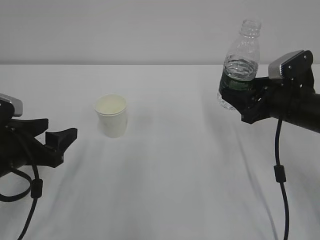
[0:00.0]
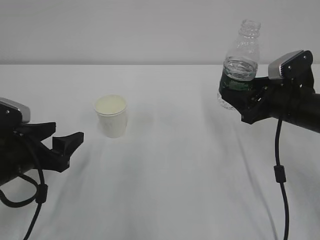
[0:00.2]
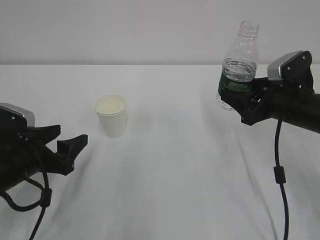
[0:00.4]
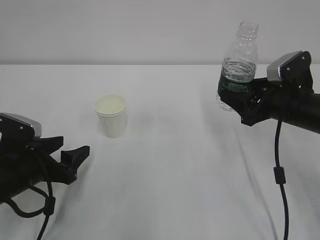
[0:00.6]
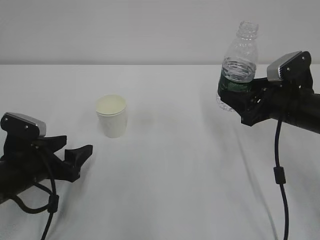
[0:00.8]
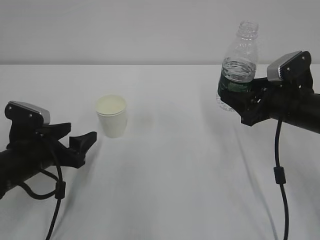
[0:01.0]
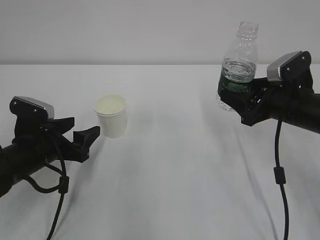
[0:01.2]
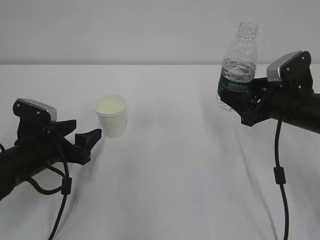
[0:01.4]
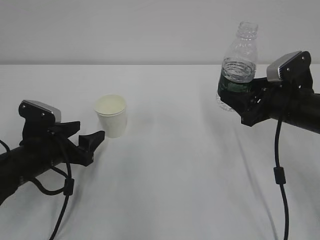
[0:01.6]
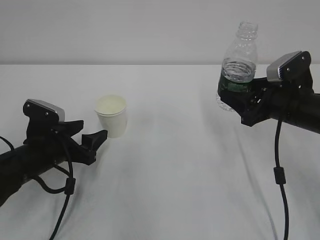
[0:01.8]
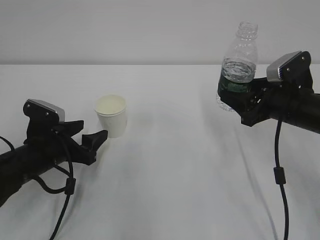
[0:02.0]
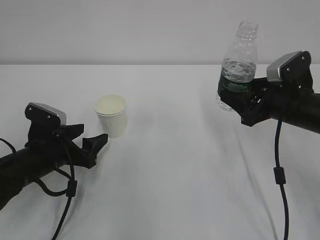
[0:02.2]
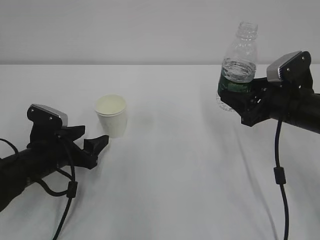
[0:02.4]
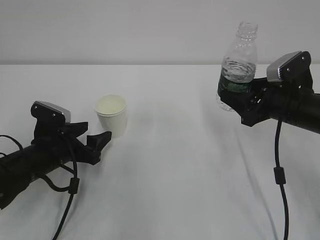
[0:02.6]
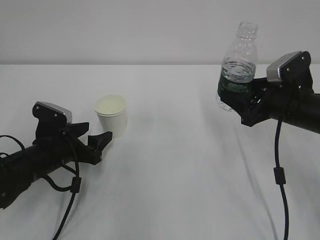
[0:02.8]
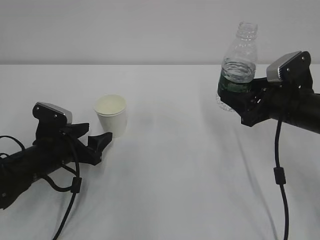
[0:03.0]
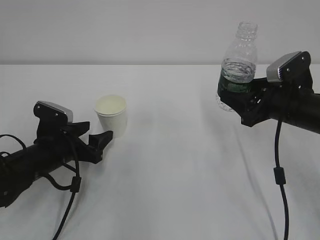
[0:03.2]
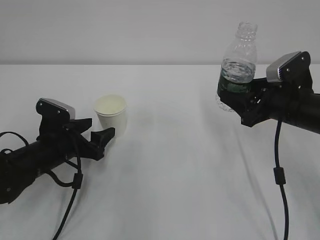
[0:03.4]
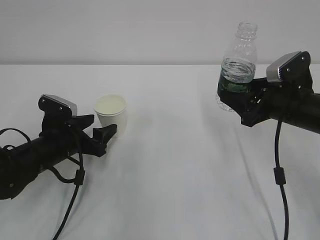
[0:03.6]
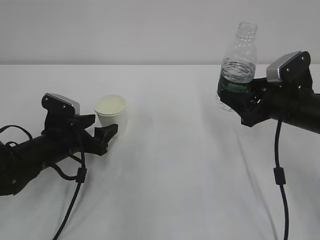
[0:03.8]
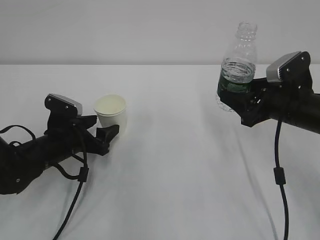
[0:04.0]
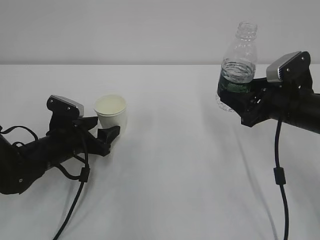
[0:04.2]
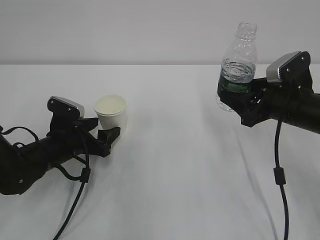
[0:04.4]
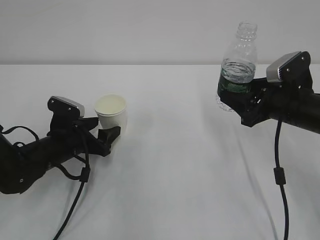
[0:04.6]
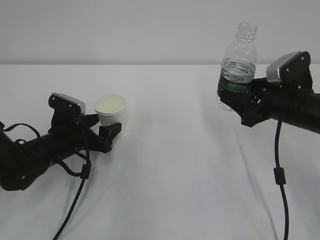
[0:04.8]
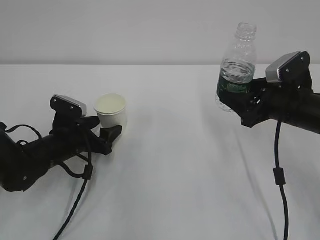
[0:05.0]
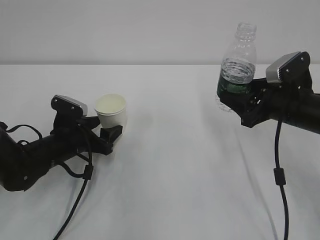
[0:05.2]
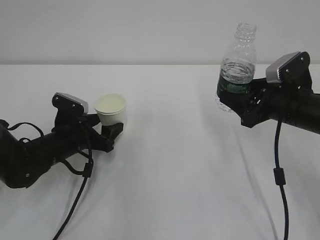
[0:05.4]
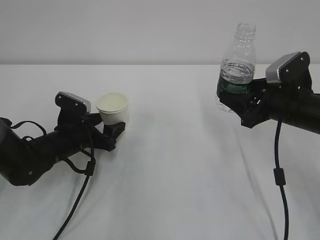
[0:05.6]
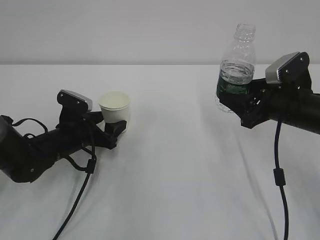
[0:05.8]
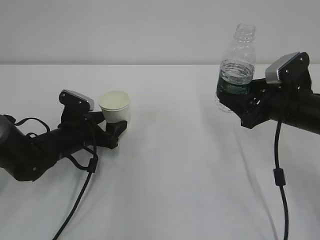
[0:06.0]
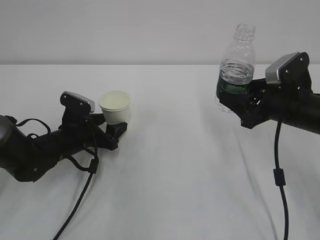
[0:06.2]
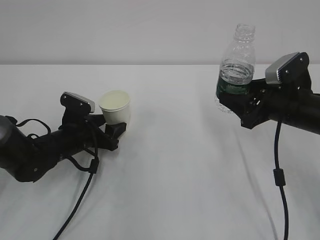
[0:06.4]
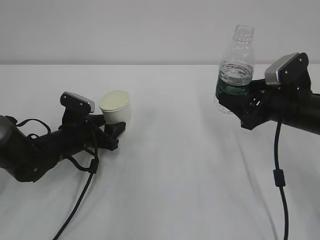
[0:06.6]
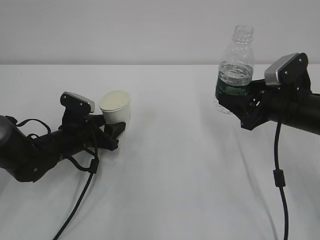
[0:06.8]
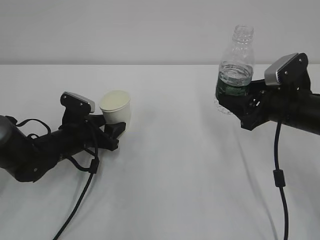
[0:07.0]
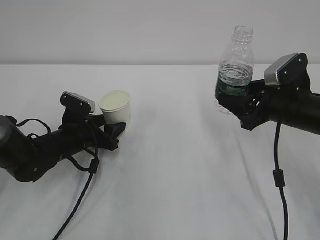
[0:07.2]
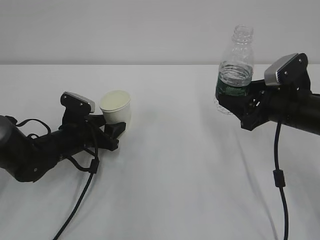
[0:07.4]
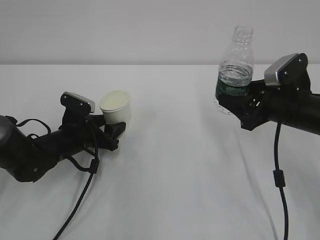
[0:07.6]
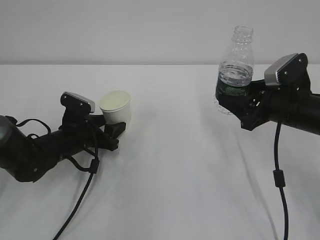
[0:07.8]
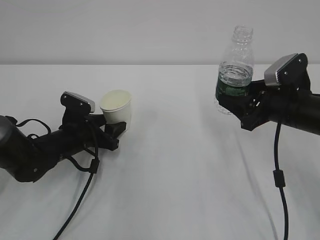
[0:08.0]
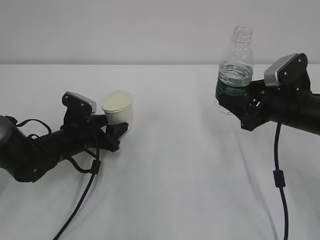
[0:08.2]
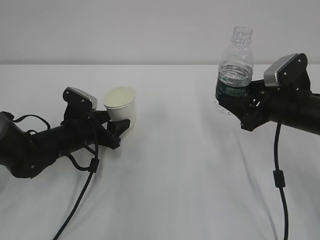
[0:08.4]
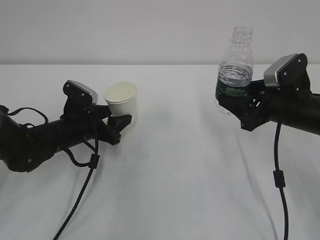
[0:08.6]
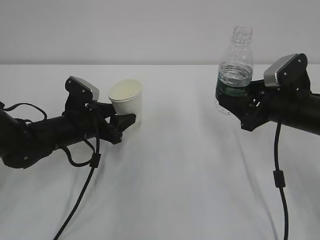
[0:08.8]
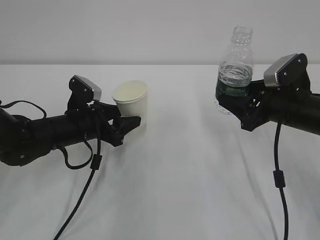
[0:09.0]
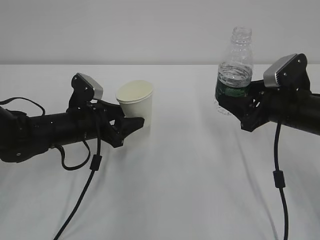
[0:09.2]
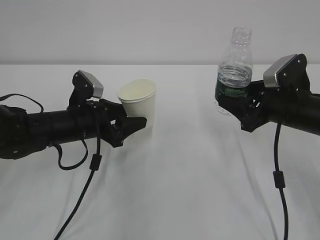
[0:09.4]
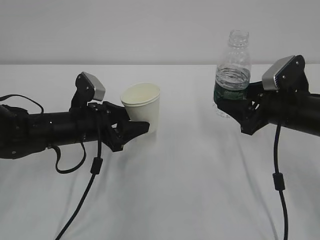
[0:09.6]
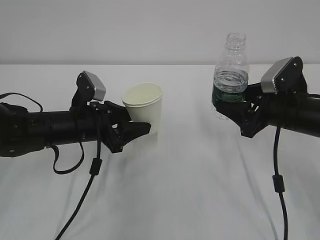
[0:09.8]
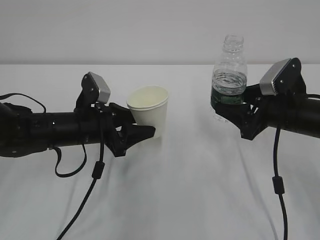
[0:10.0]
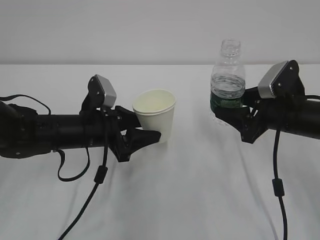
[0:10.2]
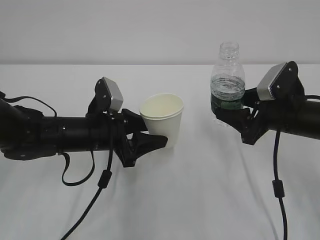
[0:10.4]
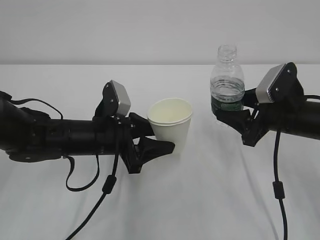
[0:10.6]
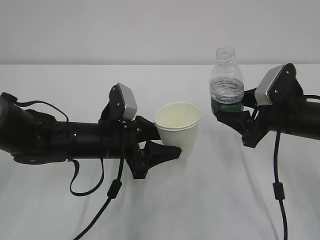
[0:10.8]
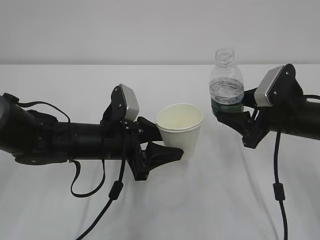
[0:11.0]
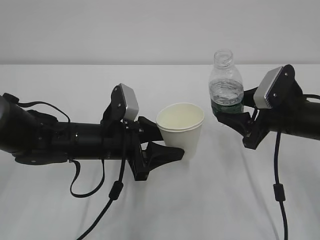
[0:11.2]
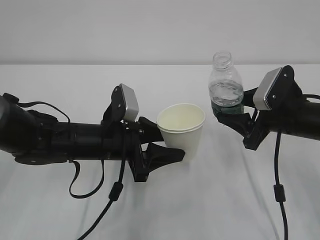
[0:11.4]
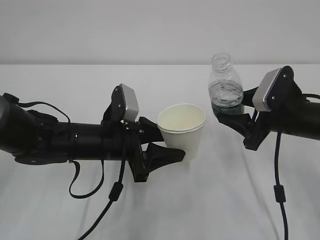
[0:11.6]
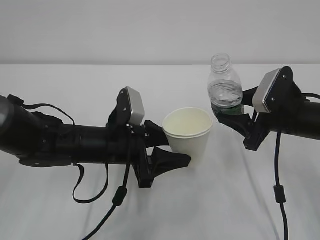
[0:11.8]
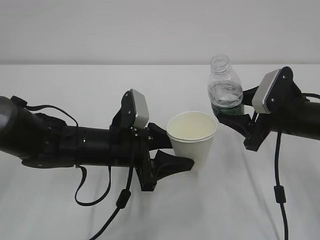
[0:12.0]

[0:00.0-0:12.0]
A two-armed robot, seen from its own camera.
0:00.0 to 0:01.6: The left gripper travels downward by some 5 cm.
0:01.6 to 0:04.4: The grippers move only a little.
0:04.4 to 0:06.0: The grippers move only a little.
0:06.0 to 0:07.6: Both grippers stay about where they are.
0:07.6 to 0:09.0: The left gripper shifts by about 5 cm.
0:09.0 to 0:10.4: The left gripper ends up about 5 cm from where it was.
0:10.4 to 0:12.0: There are only small adjustments of the grippers.

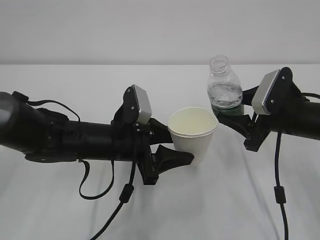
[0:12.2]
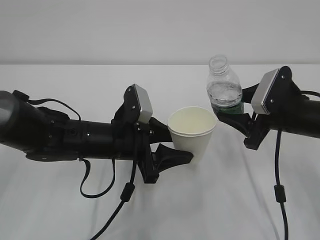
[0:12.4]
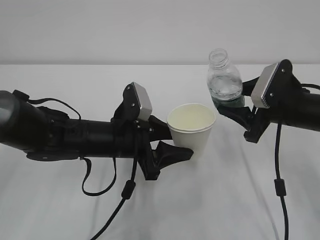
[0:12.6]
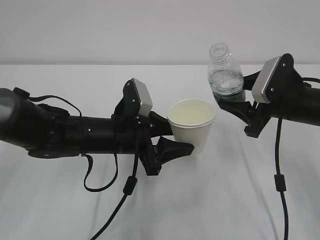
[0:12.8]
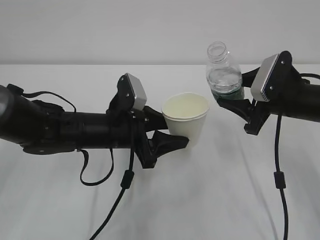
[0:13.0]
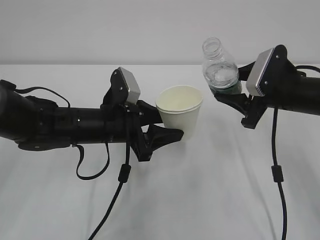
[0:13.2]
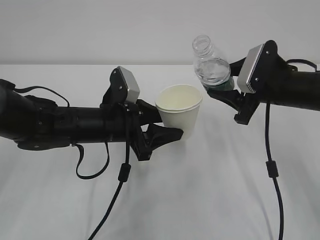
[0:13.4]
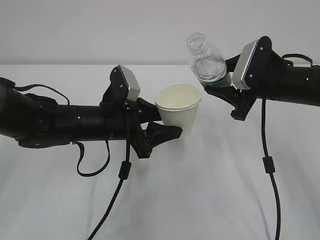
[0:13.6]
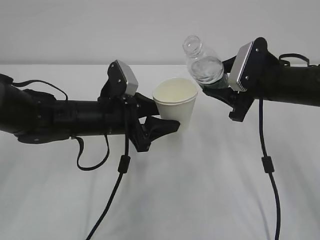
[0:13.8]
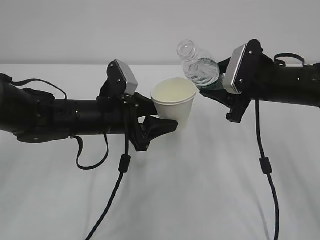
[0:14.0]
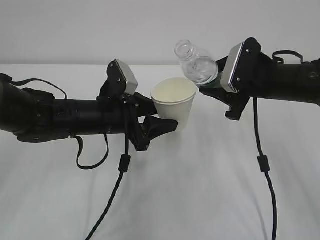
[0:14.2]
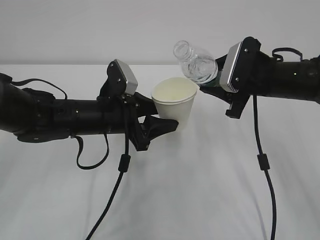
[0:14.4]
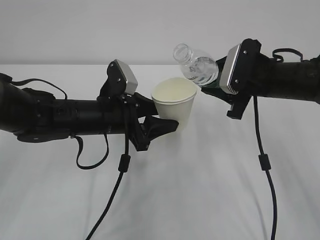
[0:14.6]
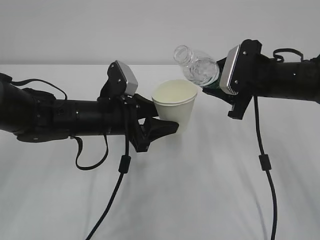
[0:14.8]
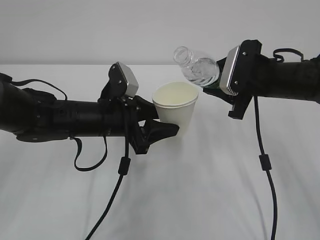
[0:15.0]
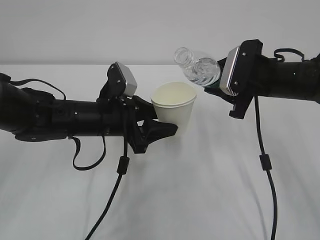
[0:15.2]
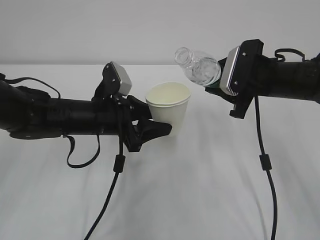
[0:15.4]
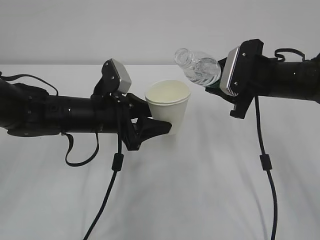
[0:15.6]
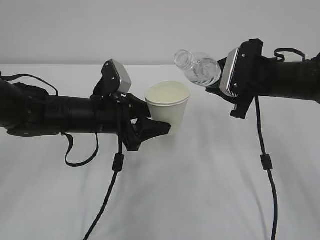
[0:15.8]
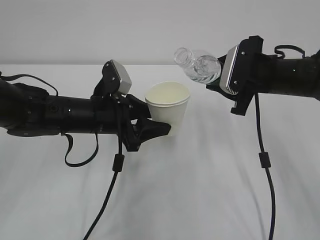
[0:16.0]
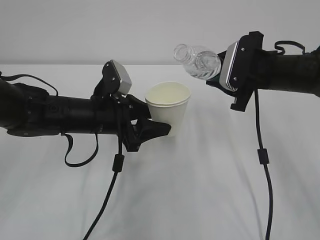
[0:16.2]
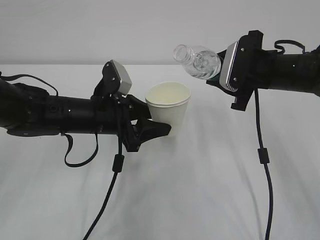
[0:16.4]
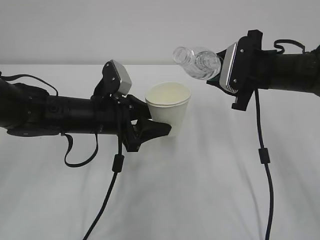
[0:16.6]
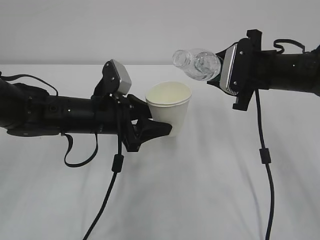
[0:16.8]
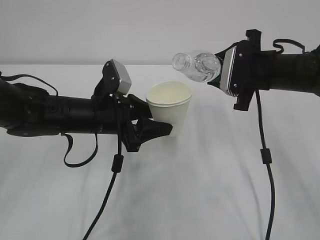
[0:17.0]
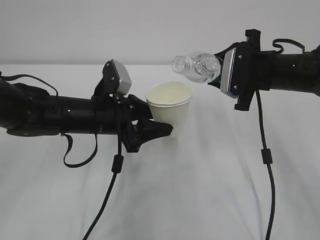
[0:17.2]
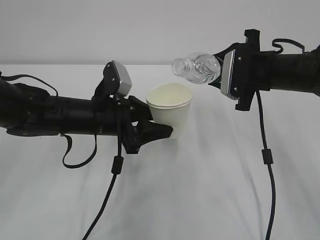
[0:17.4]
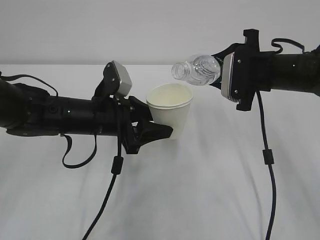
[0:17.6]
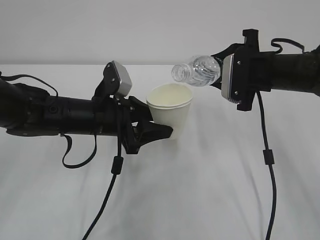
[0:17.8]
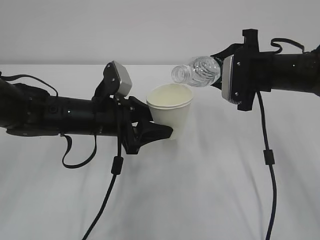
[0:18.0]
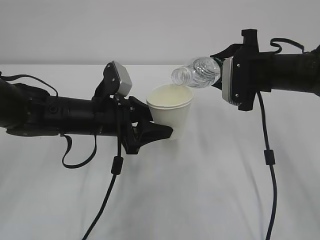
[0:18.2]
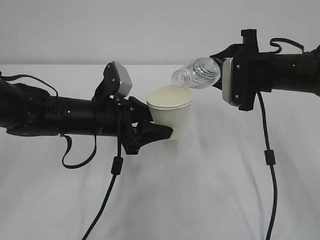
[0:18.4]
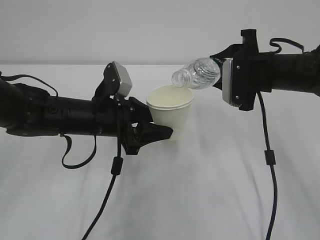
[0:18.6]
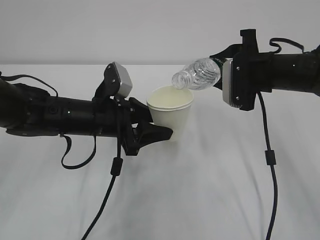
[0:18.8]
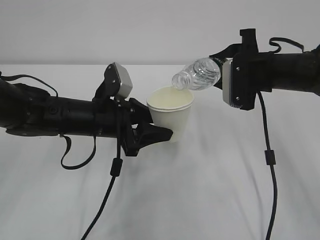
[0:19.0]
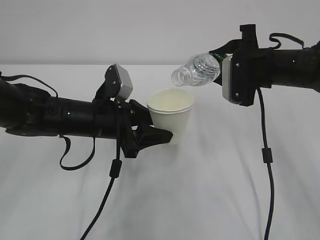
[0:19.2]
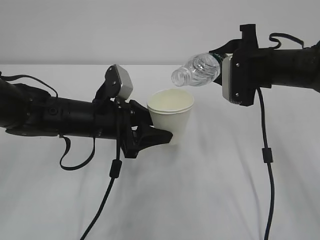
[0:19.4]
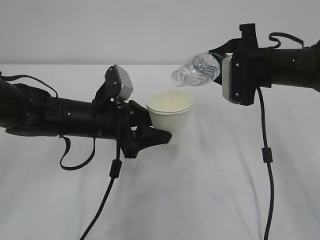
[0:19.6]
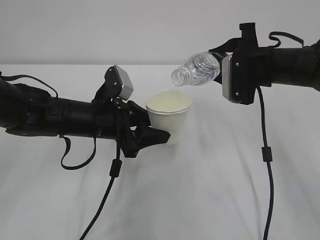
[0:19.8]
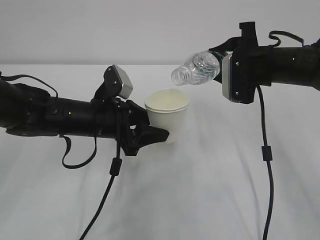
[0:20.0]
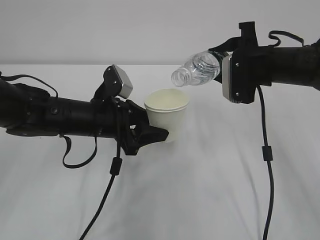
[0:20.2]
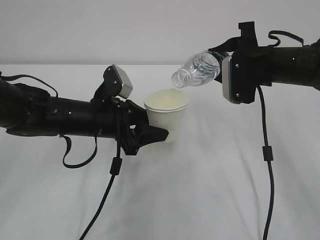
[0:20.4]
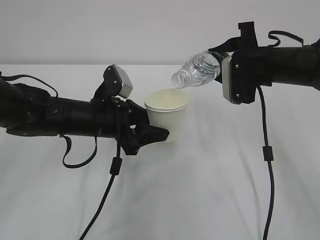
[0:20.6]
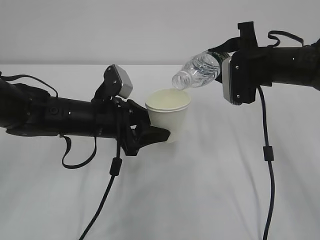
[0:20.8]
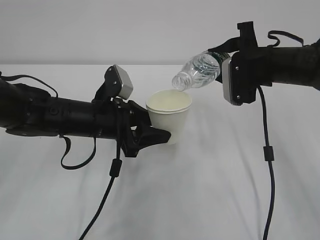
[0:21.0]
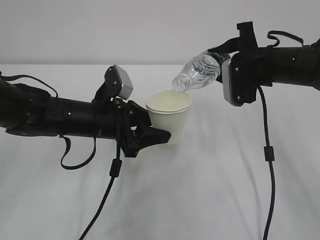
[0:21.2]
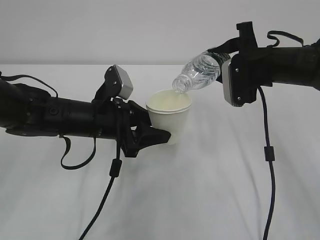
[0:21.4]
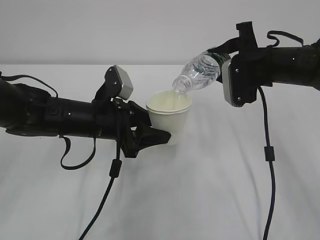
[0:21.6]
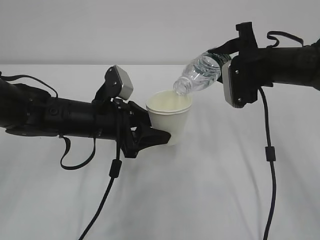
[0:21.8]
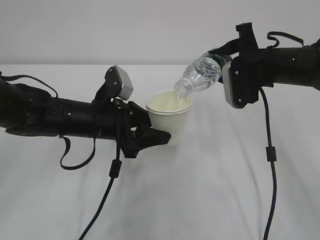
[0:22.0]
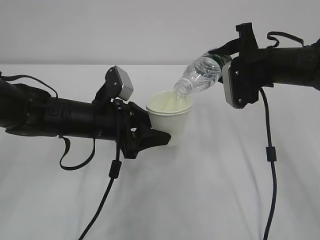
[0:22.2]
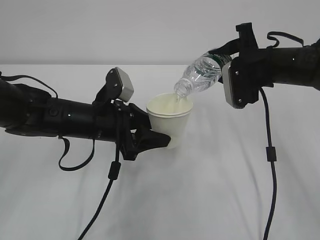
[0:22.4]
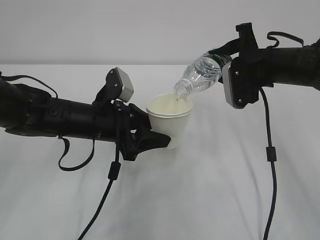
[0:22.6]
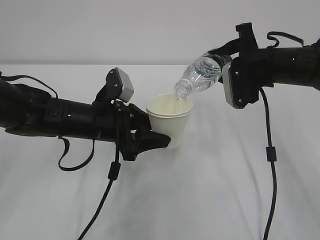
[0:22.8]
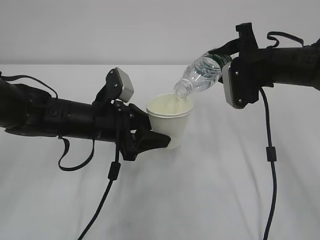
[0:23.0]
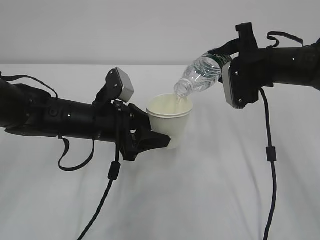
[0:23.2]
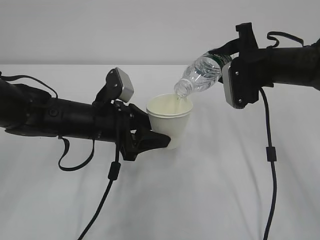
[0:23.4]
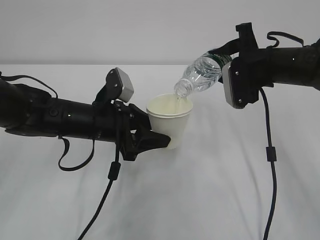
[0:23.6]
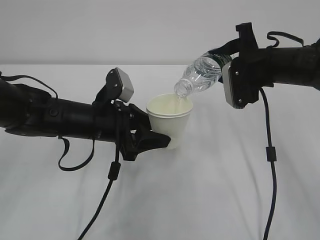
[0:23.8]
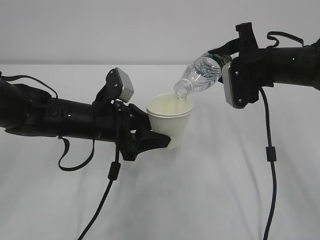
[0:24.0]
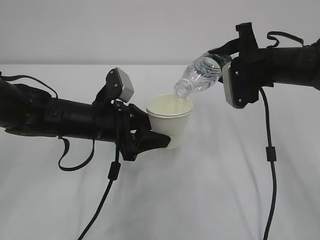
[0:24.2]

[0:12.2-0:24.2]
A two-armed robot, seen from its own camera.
0:12.2 to 0:13.8: The right gripper shifts by about 5 cm.
0:13.8 to 0:16.6: The grippers stay close to where they were, moving slightly.
0:16.6 to 0:18.2: The grippers move only a little.
0:18.2 to 0:21.2: The grippers make only small movements.
0:21.2 to 0:24.2: Both grippers stay about where they are.
